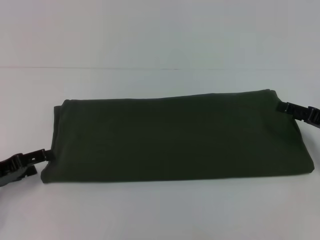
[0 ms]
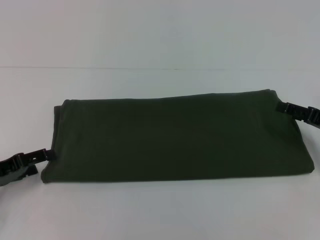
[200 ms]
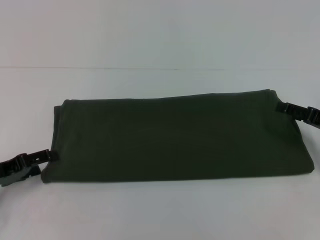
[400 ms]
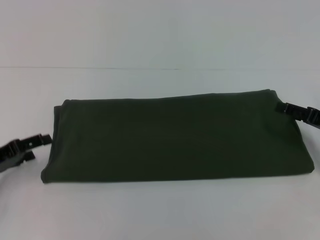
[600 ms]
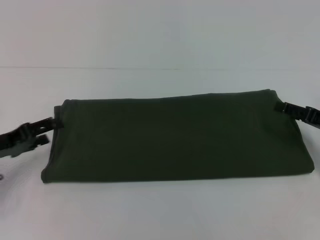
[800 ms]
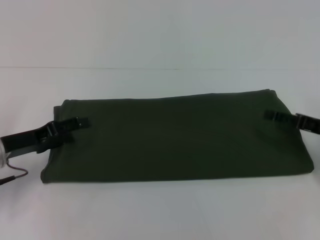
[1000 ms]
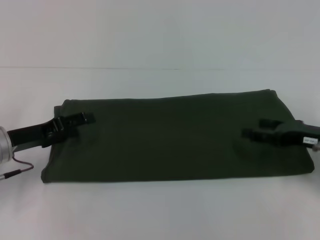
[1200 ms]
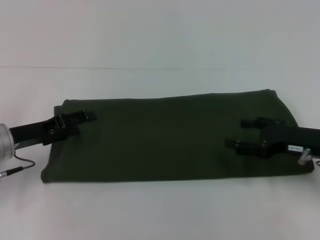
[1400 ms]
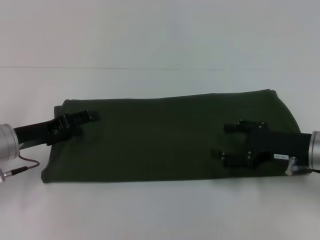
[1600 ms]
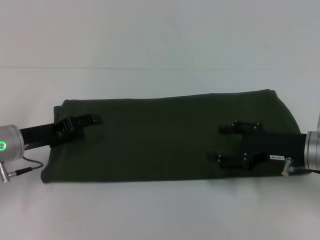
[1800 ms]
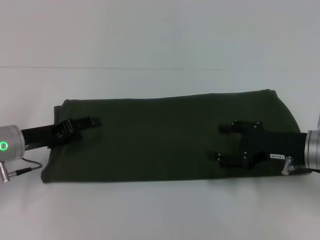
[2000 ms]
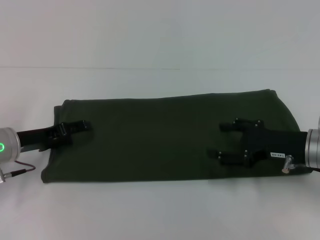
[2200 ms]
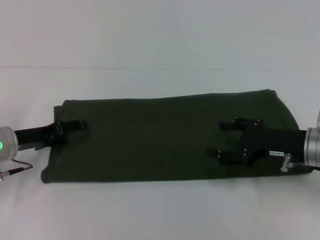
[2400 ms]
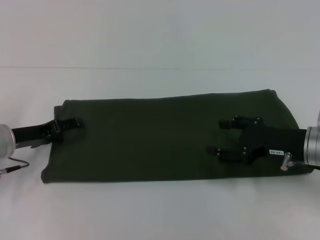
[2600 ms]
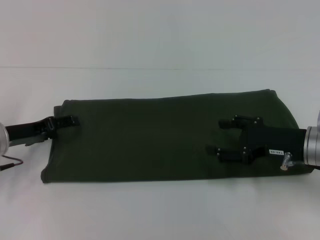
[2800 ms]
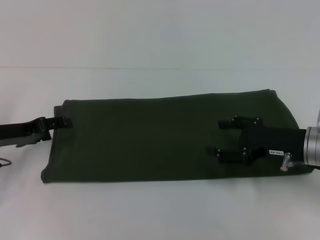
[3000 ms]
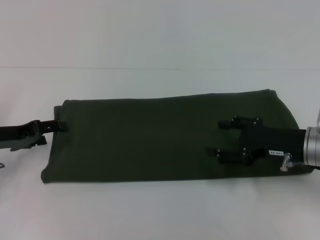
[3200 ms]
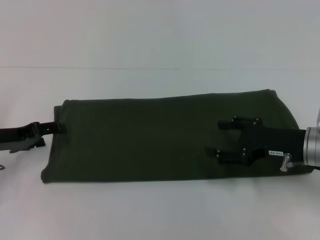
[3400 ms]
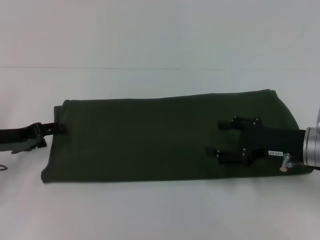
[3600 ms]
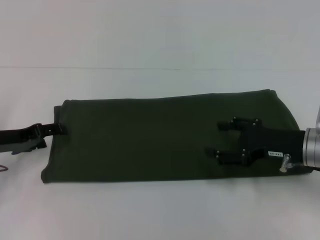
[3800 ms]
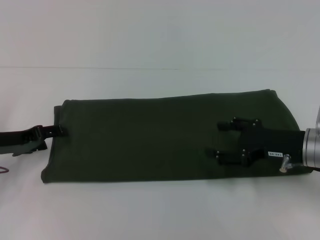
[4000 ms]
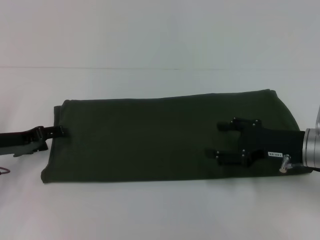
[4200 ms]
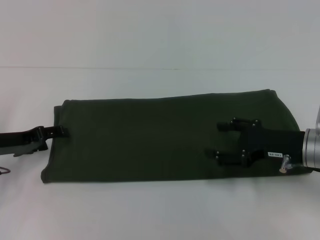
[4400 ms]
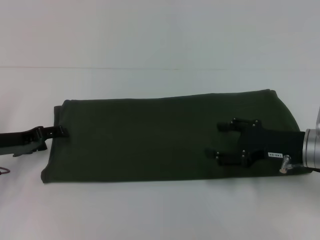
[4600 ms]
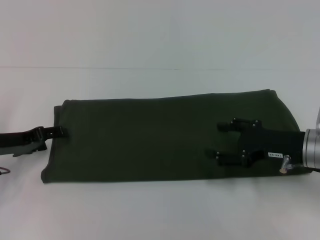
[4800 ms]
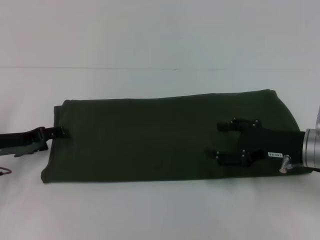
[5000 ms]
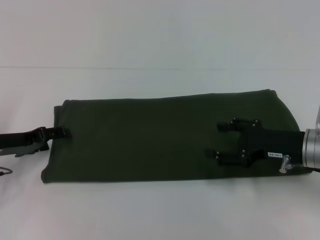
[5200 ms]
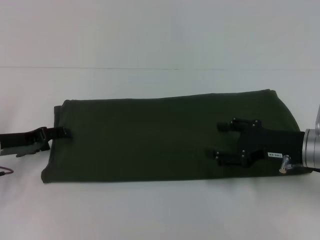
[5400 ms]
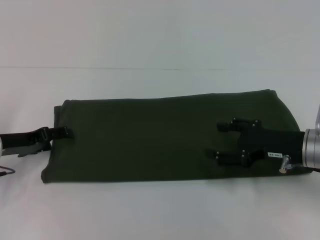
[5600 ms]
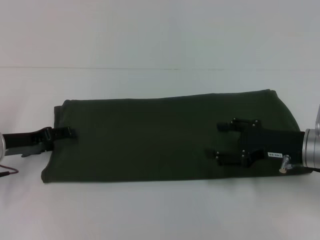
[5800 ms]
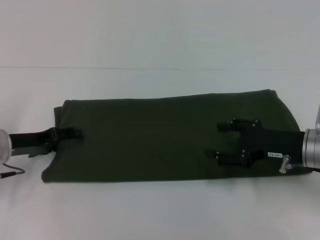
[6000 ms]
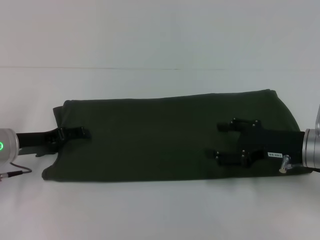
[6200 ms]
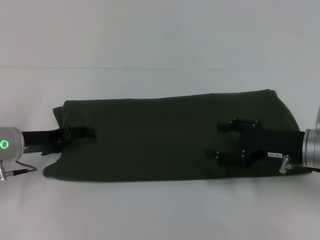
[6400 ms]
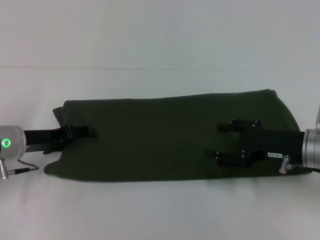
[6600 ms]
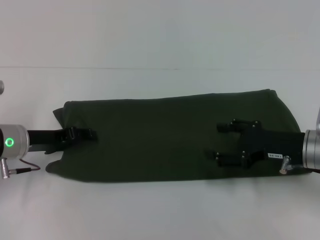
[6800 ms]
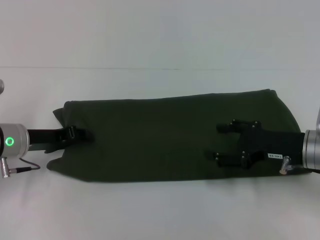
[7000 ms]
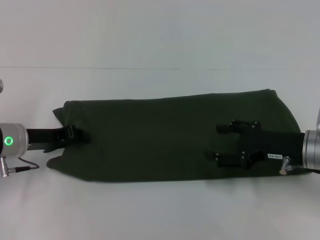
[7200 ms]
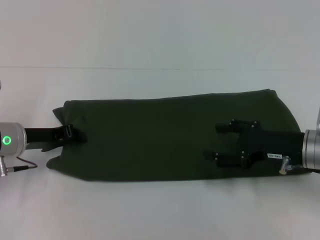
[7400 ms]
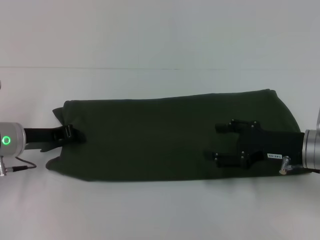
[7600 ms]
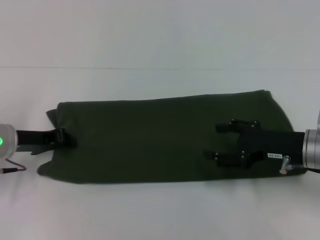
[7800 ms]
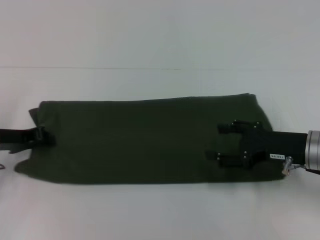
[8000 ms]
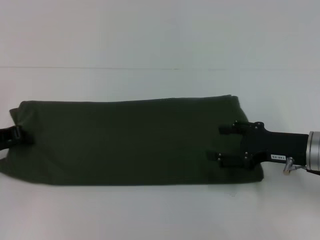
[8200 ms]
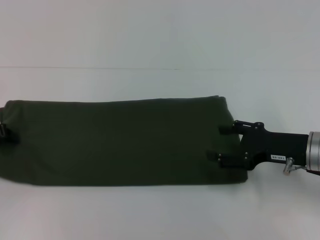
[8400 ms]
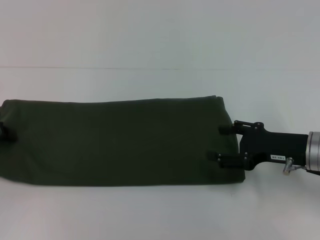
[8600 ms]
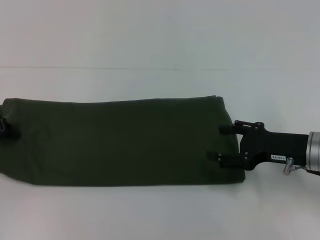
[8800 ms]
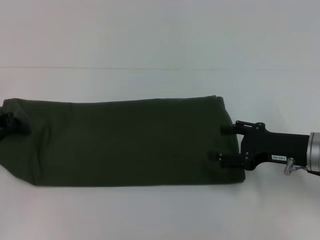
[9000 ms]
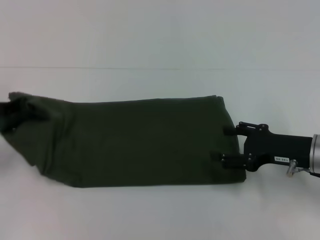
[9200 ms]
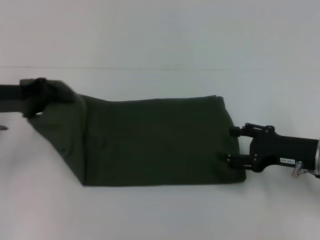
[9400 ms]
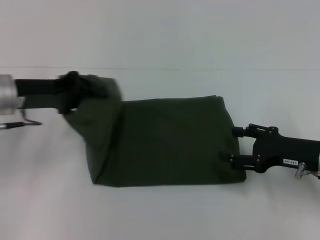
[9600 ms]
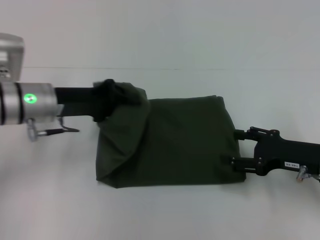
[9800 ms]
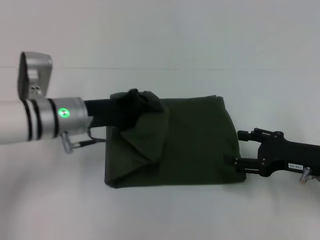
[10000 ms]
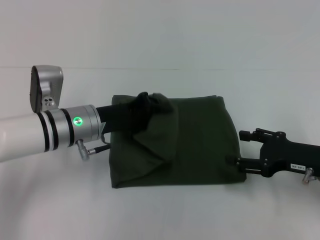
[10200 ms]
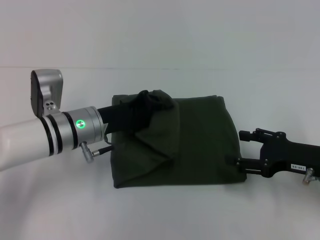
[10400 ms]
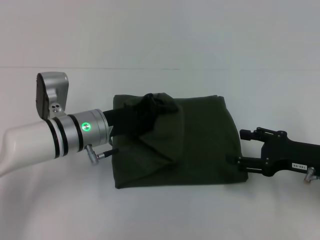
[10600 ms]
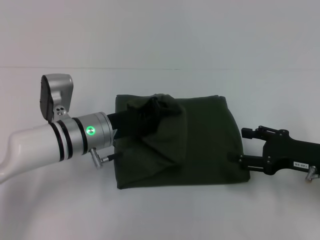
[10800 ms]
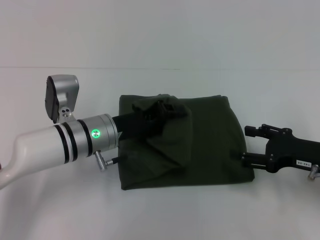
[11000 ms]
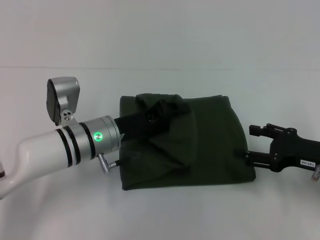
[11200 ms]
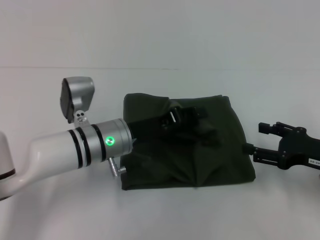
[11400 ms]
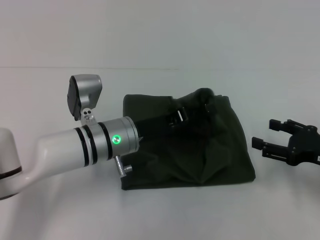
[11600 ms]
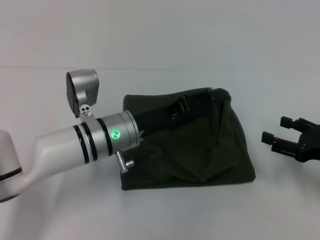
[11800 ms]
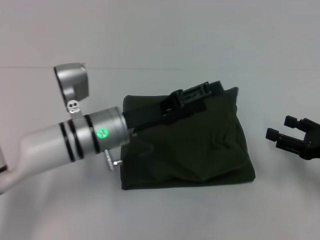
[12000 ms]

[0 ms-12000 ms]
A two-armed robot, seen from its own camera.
Step, 0 ms to 12000 ms: Fold the clothes with your left hand.
0 ms to 1600 ms: The left gripper travels forward and to the right by some 10 cm. The right gripper goes approximately 10 cm to the left.
1600 ms to 3000 ms: The grippers move only a little.
3000 ms to 4400 ms: Both grippers stay put.
4400 ms to 6000 ms: There are only small adjustments of the grippers.
6000 ms to 7600 ms: The left gripper closes.
7600 ms to 9000 ms: The left gripper is displaced to the left by some 10 cm.
9000 ms to 10400 ms: The left gripper moves to the right, some 20 cm.
10400 ms to 12000 ms: The right gripper is displaced to the right by roughly 5 cm, while the left gripper opens up.

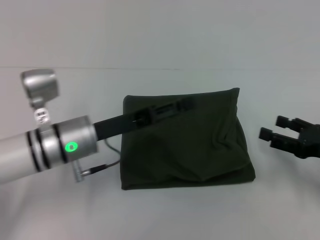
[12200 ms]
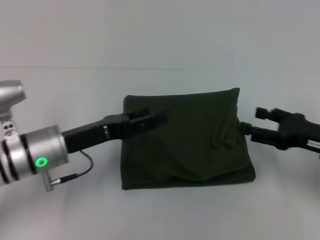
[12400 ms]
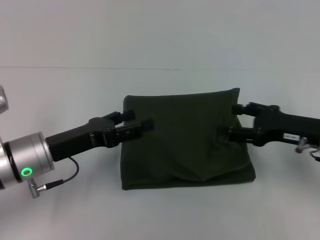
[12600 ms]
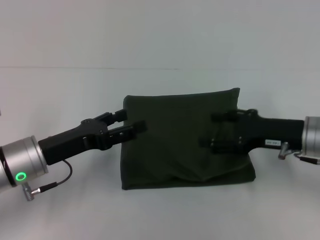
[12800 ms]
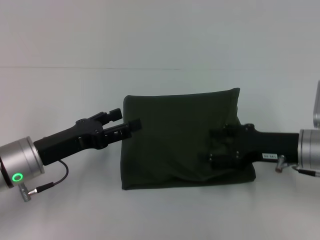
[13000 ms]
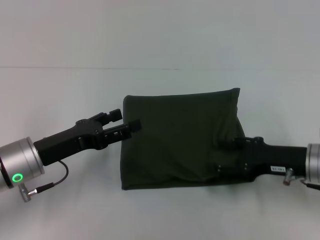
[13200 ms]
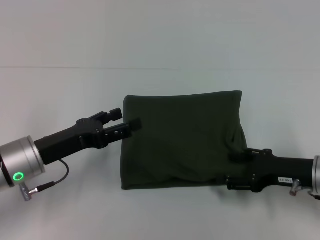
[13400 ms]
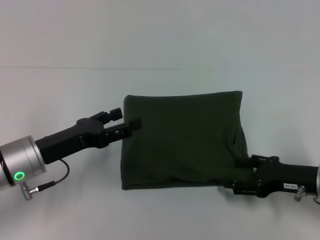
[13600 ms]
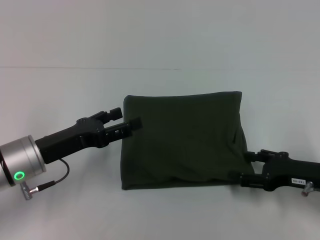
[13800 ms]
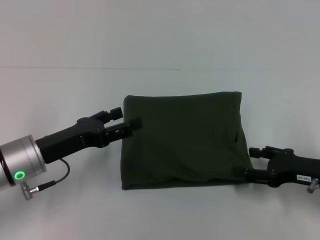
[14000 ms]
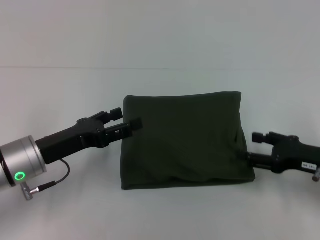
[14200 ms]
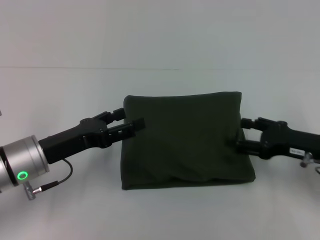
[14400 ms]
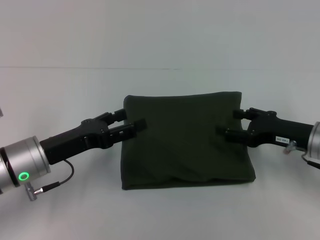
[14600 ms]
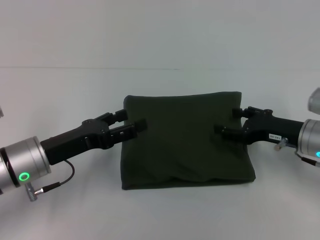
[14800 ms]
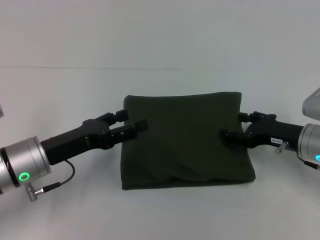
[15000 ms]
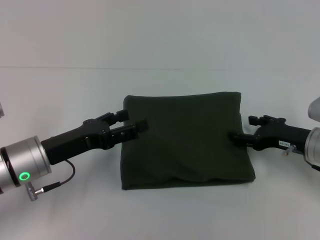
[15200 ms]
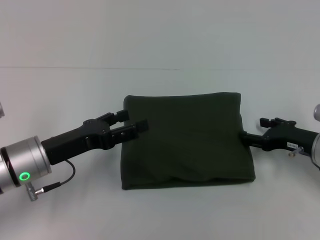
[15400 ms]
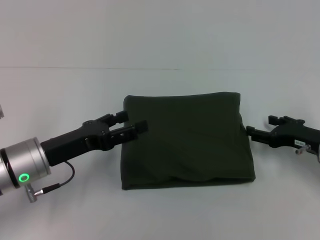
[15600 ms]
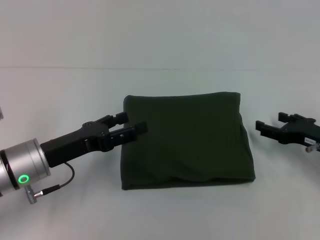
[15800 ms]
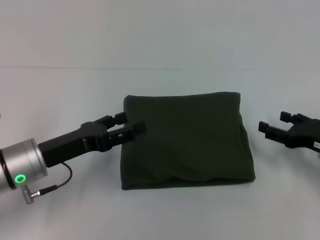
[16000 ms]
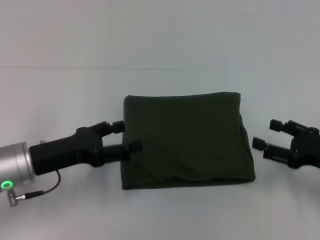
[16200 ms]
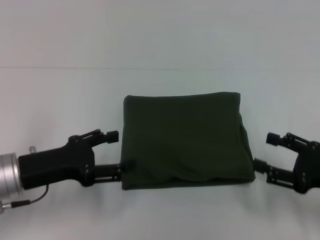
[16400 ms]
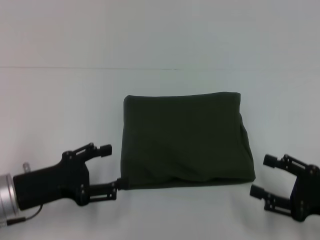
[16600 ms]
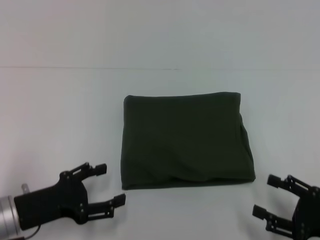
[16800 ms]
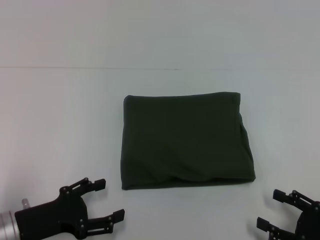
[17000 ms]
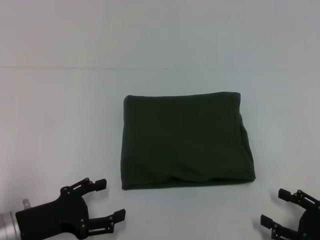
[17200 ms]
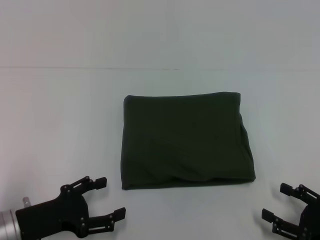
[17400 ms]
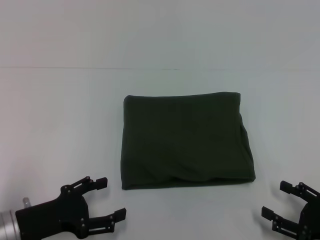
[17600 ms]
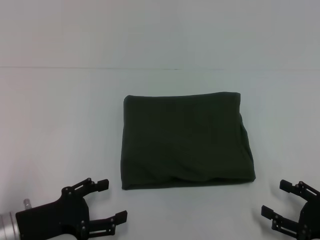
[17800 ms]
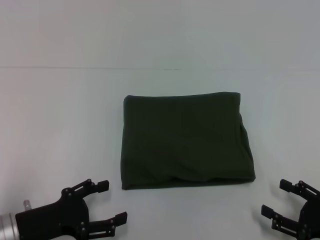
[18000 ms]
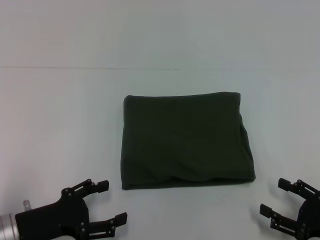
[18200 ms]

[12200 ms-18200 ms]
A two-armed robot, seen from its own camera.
12200 ms to 13800 ms: The left gripper shifts some 5 cm to the left.
13800 ms to 15200 ms: The right gripper heads forward, covering roughly 5 cm.
15200 ms to 16600 ms: The right gripper goes roughly 15 cm backward. The left gripper moves about 5 cm.
16600 ms to 18200 ms: The left gripper ends up roughly 5 cm from where it was. Meanwhile the right gripper changes place by roughly 5 cm.

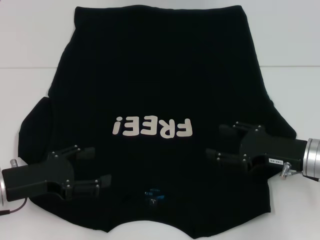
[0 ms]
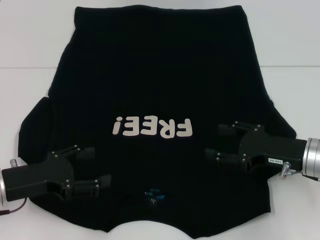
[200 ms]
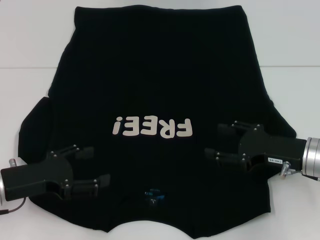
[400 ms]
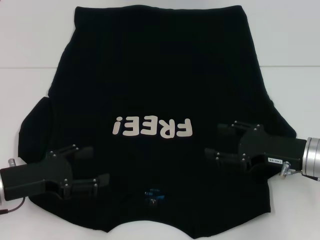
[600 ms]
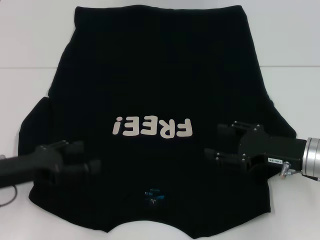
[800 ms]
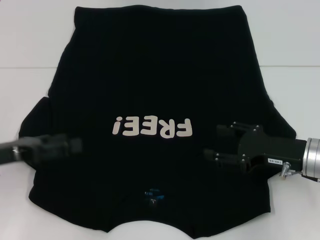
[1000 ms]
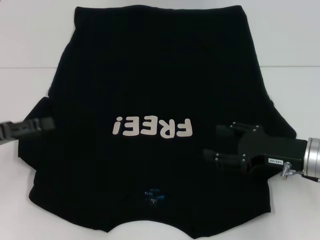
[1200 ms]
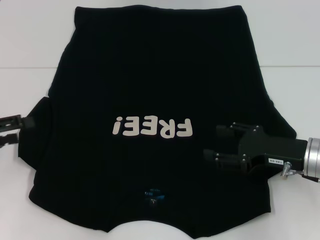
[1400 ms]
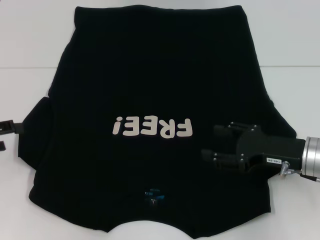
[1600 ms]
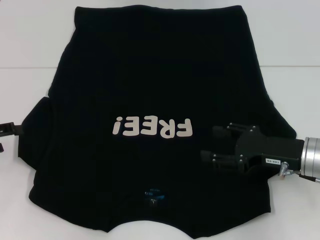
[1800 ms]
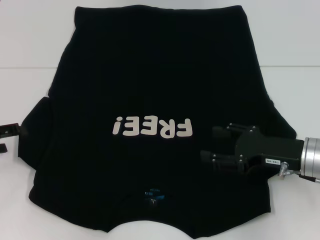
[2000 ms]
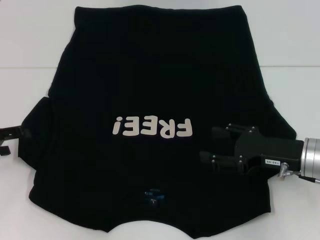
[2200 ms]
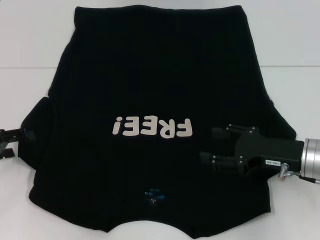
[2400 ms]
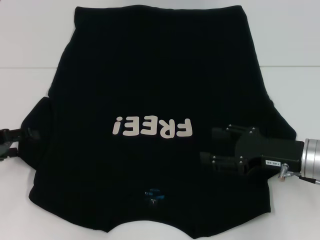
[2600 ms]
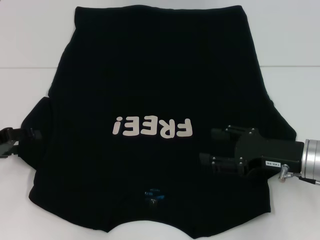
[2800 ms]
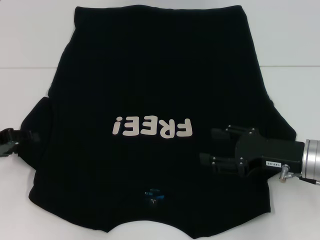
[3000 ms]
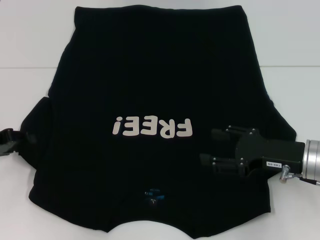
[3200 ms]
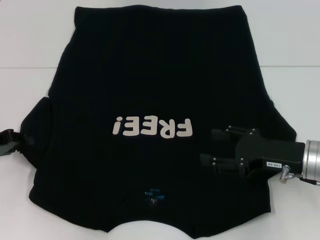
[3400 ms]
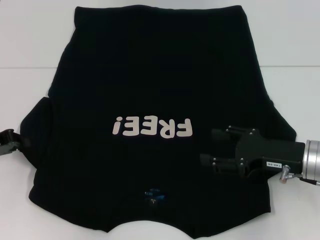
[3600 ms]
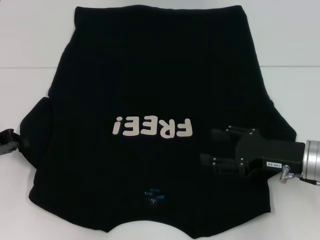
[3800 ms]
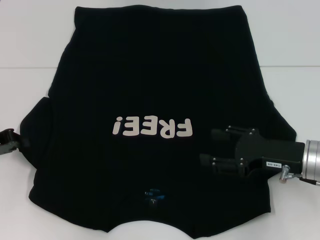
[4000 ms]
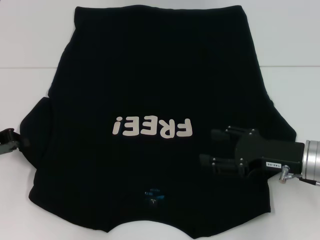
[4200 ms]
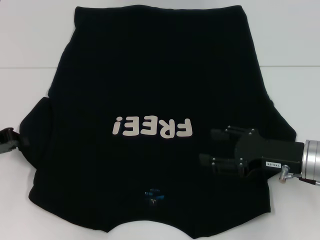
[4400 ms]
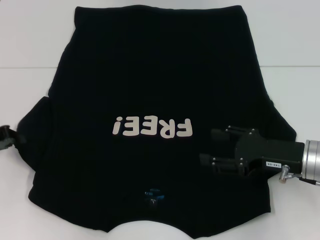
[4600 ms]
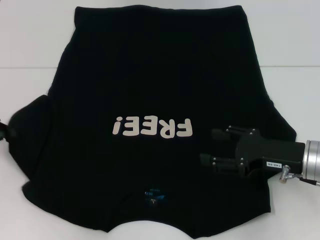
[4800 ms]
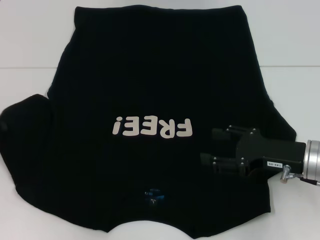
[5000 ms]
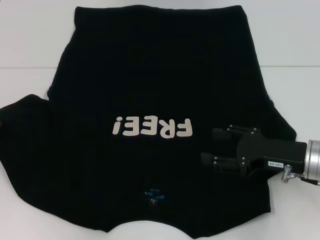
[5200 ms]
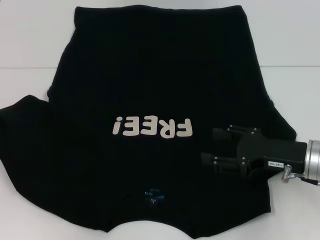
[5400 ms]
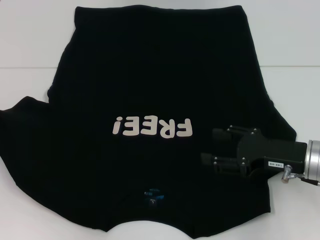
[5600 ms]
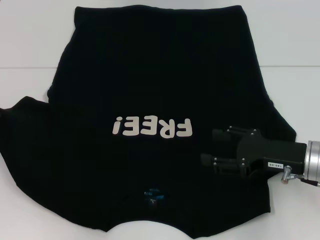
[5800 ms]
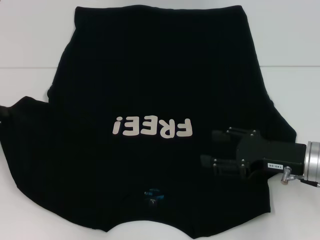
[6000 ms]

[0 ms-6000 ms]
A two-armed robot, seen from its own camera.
0 ms to 1600 ms: The left gripper goes some 10 cm to the left.
1600 ms to 3000 ms: The grippers make only small movements.
4400 ms to 6000 ms: The grippers make only small movements.
